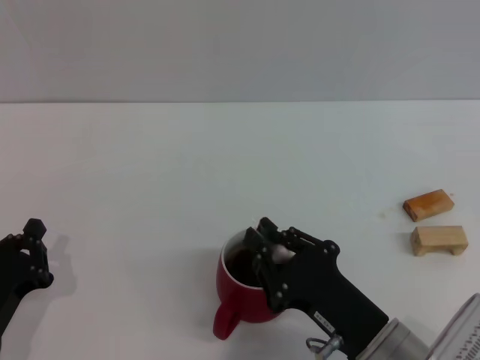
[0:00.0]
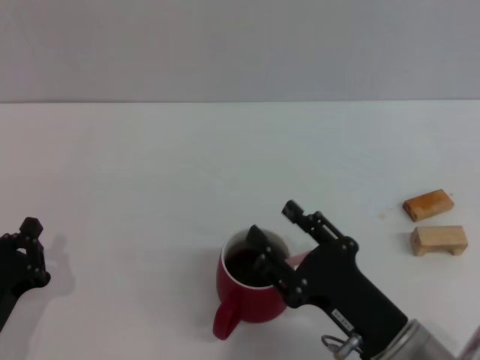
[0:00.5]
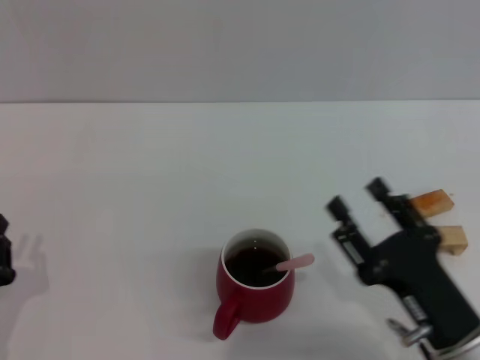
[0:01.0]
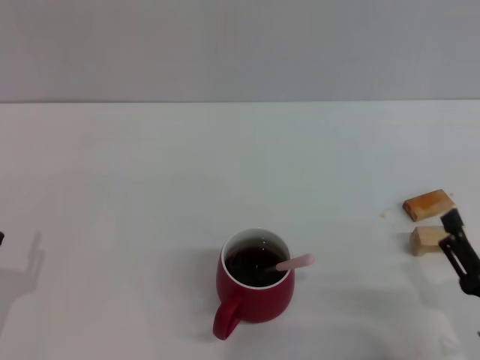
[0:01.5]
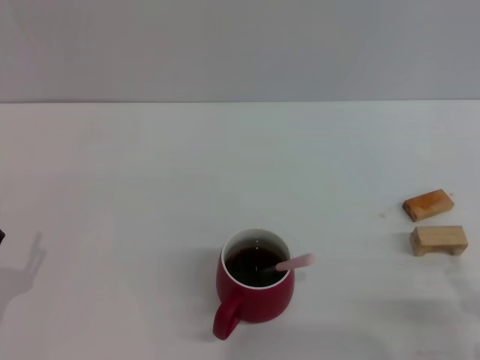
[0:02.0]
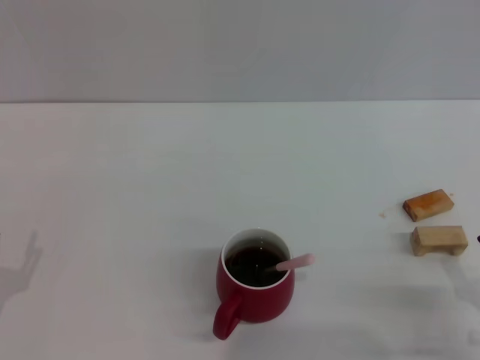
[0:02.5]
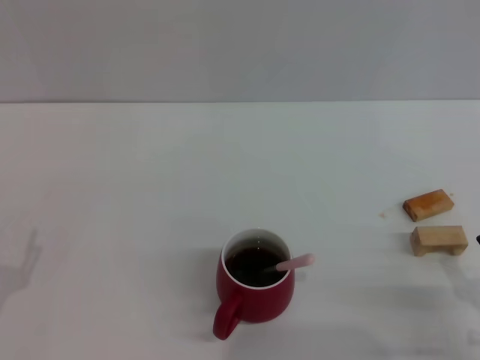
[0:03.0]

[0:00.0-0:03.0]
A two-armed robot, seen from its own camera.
Task of the whole recording: Move the red cup to the center, lift the pink spoon, stir it three times in the cup, and put the spoon into the cup.
0:00.0 to 0:01.5: The right gripper travels to the right by some 10 cm, and opens. The left gripper opens.

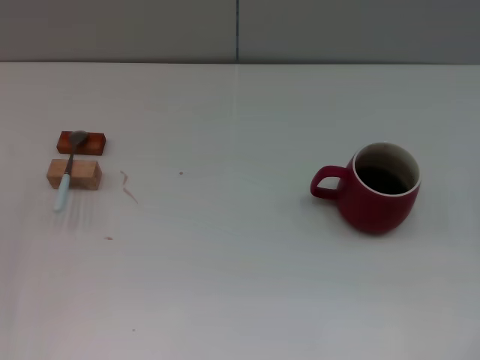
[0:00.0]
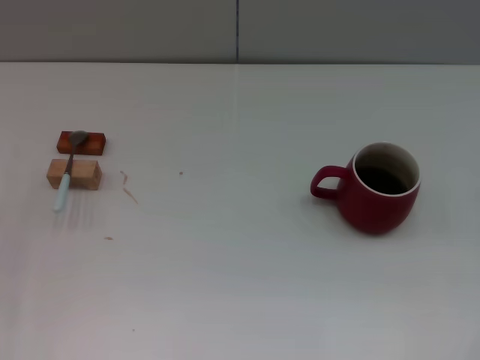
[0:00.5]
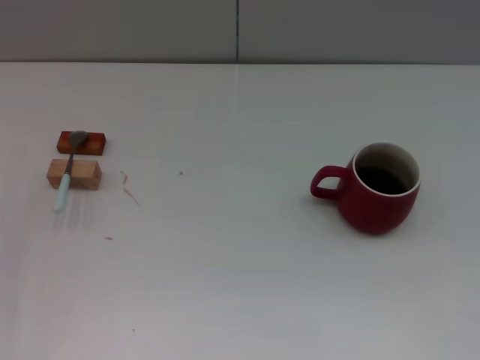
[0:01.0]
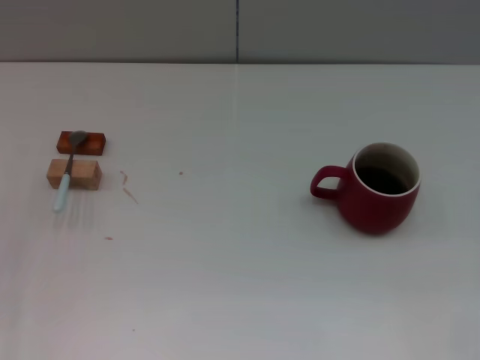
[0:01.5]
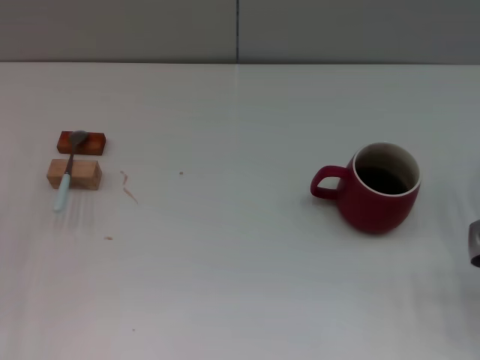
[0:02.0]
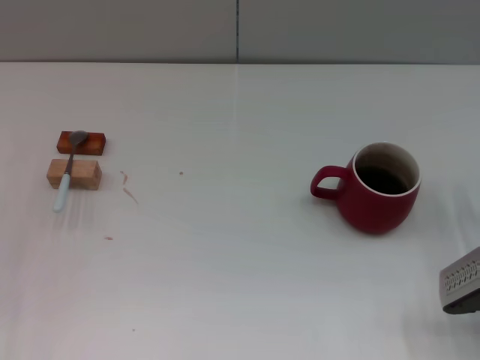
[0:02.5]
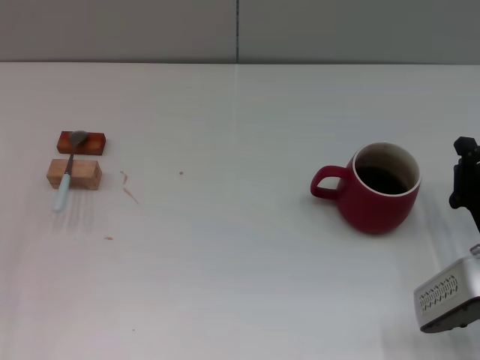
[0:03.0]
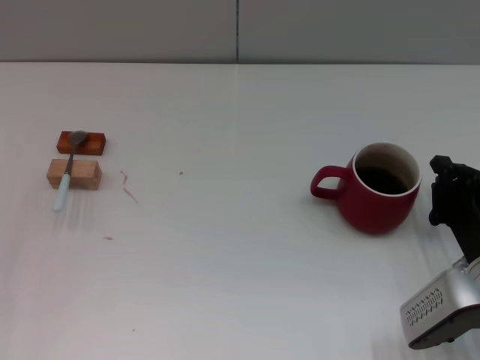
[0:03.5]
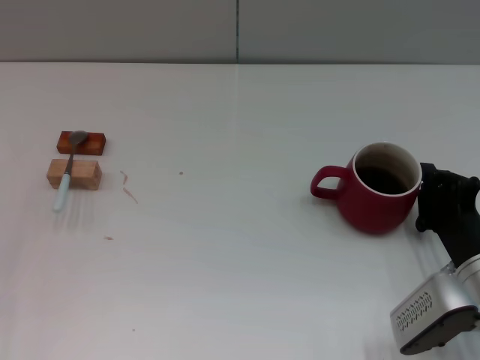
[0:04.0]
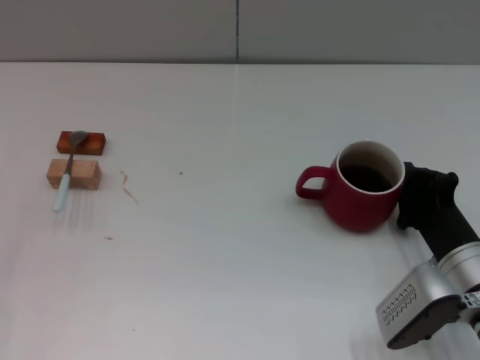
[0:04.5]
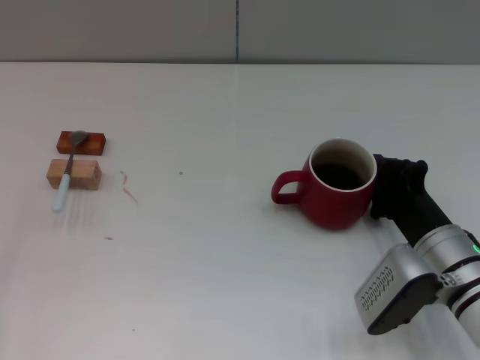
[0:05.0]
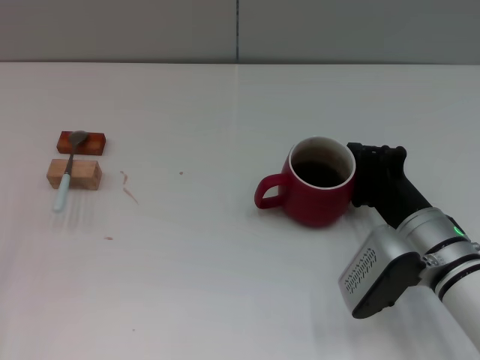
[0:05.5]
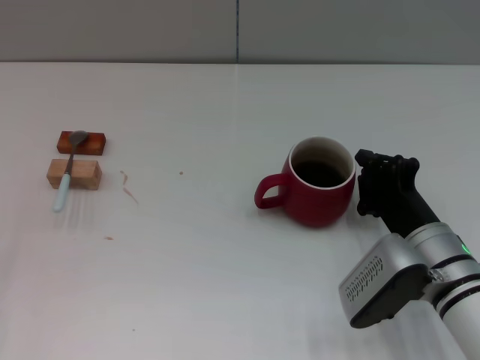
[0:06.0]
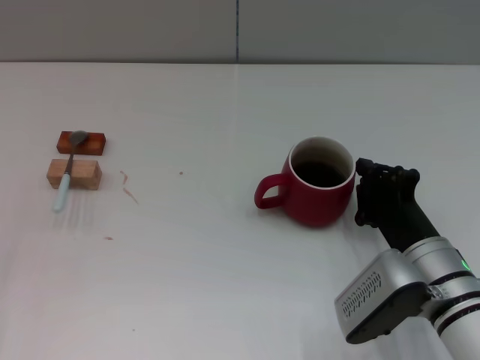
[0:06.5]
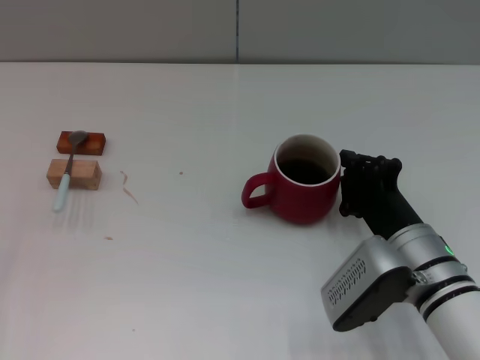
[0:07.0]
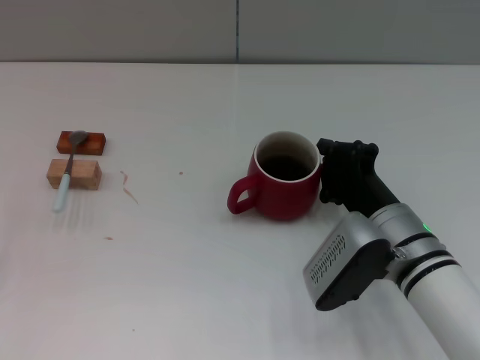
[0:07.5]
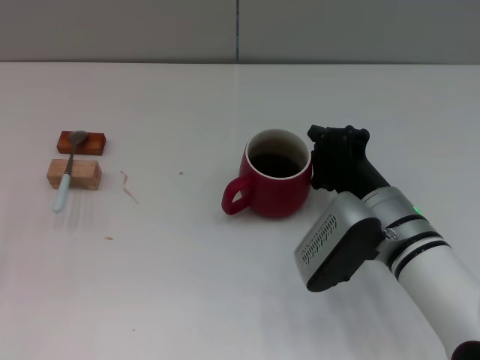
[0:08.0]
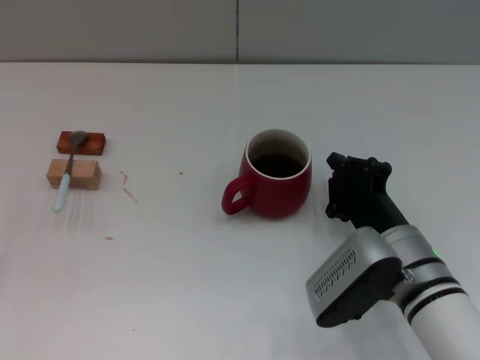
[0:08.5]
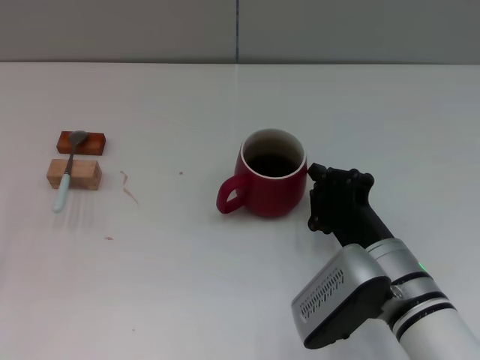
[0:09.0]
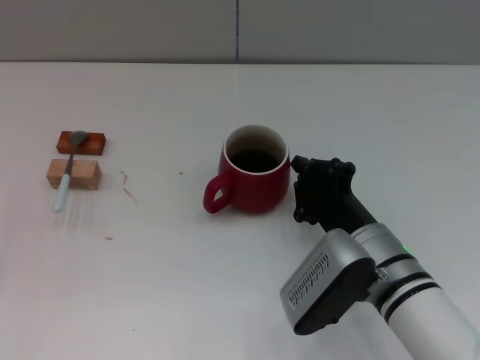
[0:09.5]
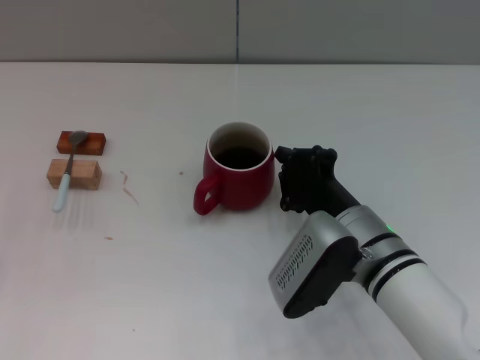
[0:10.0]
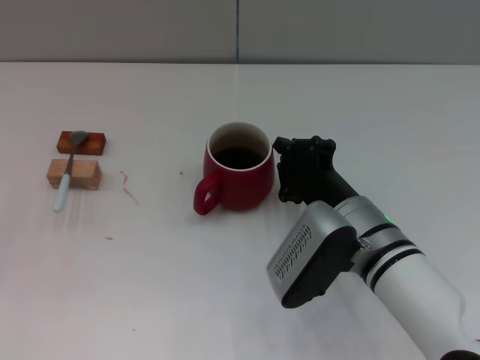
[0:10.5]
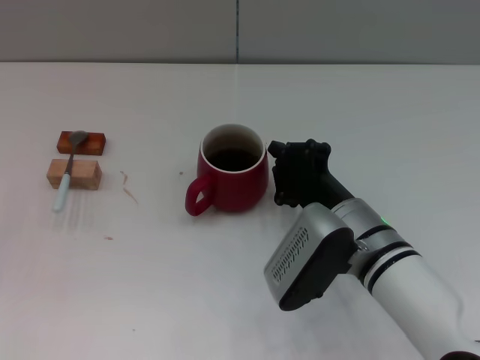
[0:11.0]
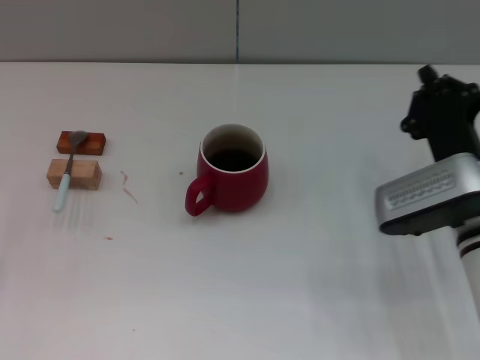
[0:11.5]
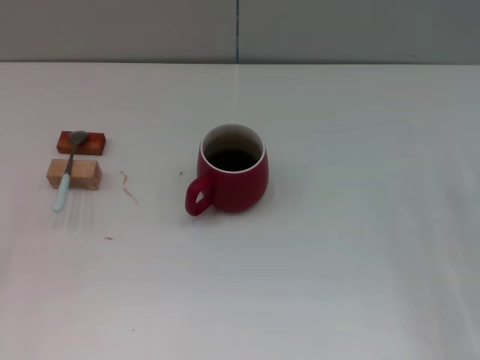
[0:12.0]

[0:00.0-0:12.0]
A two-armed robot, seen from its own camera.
Task of the whole recording: Move the red cup to the center, lift the blue spoon, stir it three times in the cup, and put the spoon into the cup.
Step, 0:00.0 to 0:11.0: Move the cup with coffee to the center of view with the right gripper.
0:00.0 to 0:02.0: The right gripper is displaced to the left by roughly 5 cm, and closes.
0:02.0 to 0:04.0: The right gripper shifts some 5 cm to the left.
0:04.0 to 0:06.0: The right gripper shifts about 5 cm to the left.
0:06.0 to 0:08.0: The right gripper ends up approximately 5 cm from where it was.
0:08.0 to 0:10.0: The grippers stay close to where they were, moving slightly.
0:10.0 to 0:12.0: The right gripper travels to the right by about 20 cm.

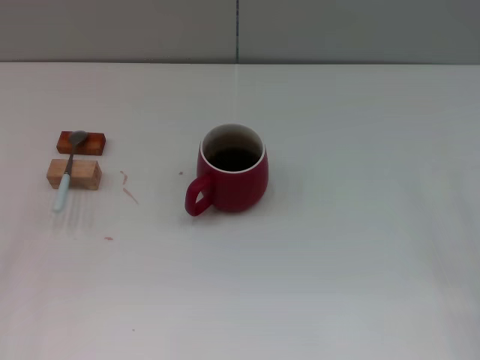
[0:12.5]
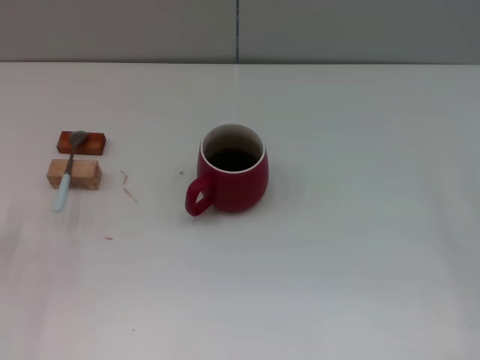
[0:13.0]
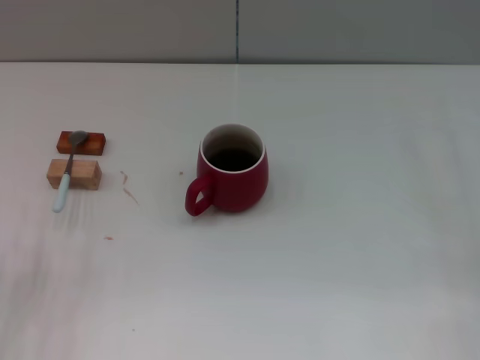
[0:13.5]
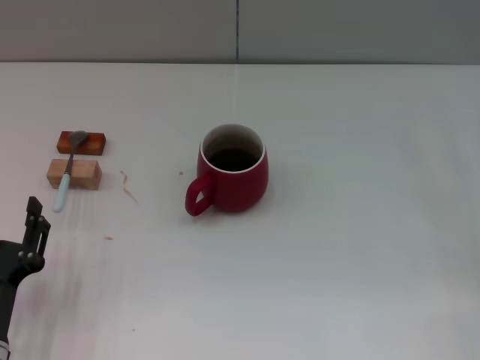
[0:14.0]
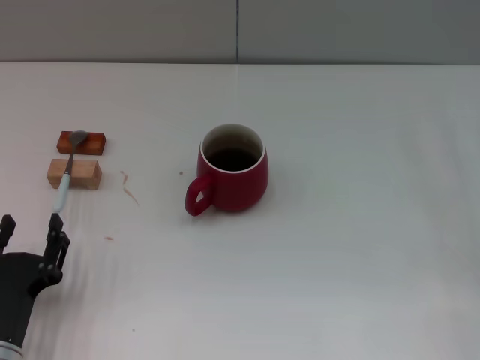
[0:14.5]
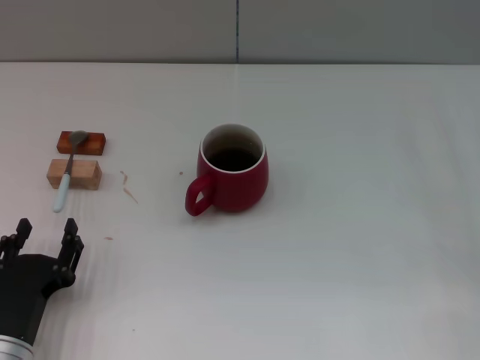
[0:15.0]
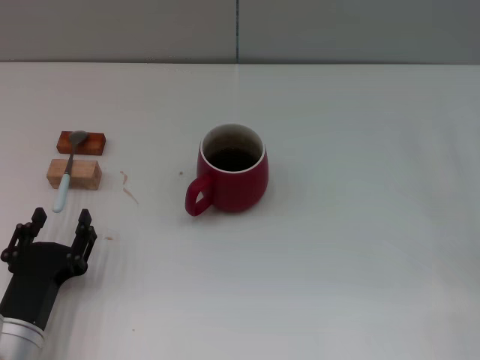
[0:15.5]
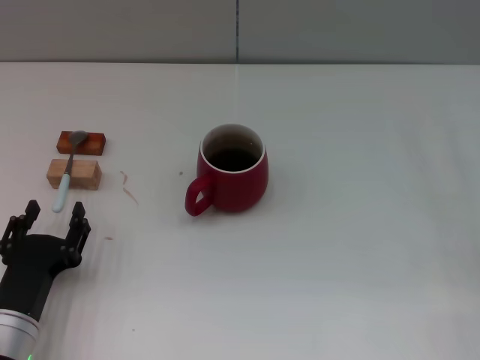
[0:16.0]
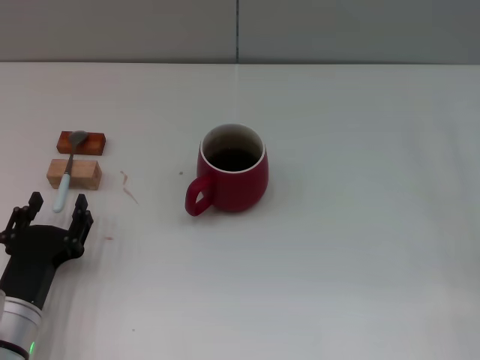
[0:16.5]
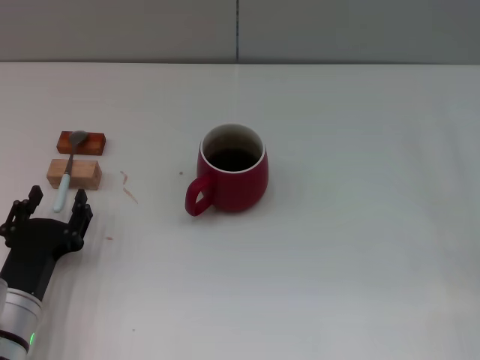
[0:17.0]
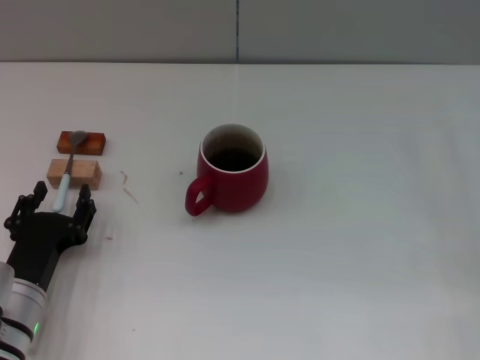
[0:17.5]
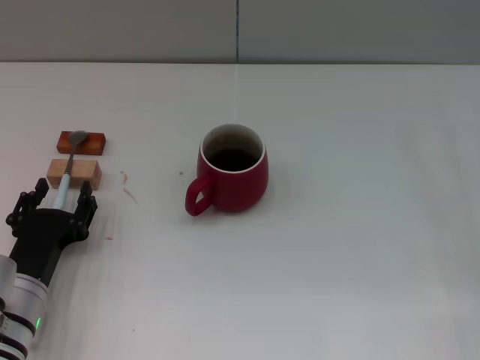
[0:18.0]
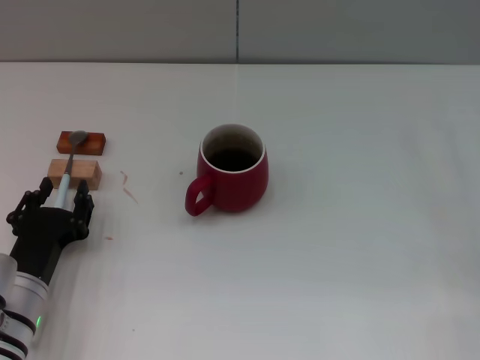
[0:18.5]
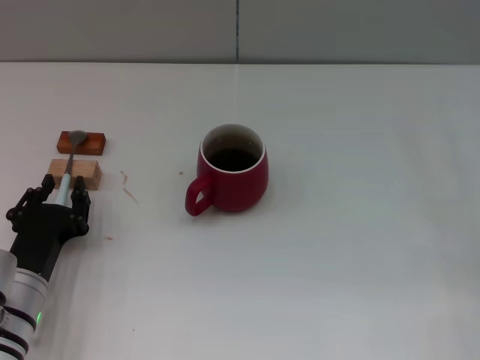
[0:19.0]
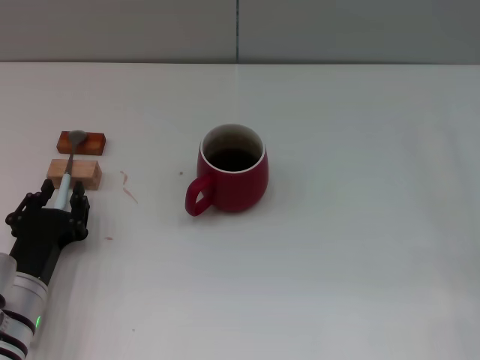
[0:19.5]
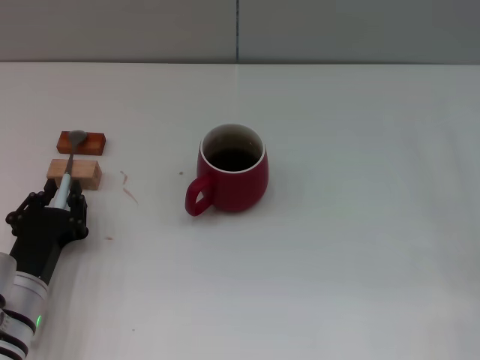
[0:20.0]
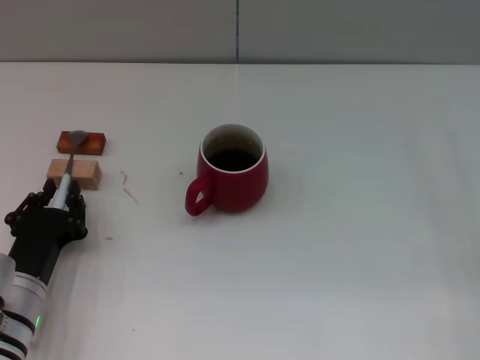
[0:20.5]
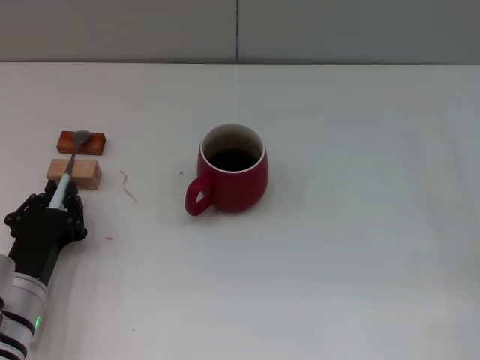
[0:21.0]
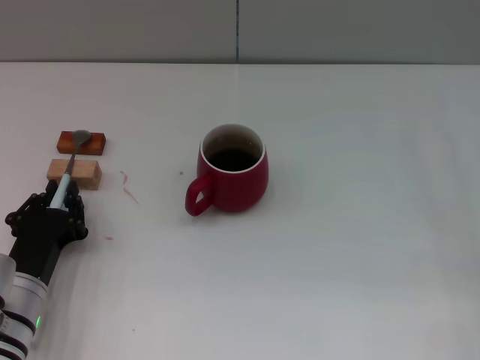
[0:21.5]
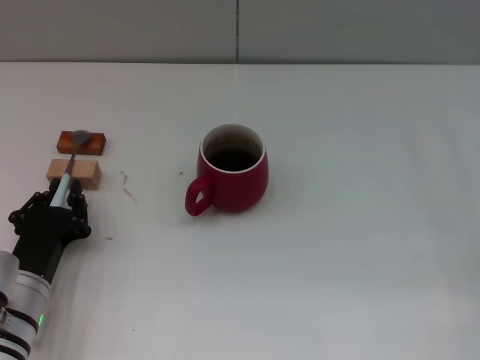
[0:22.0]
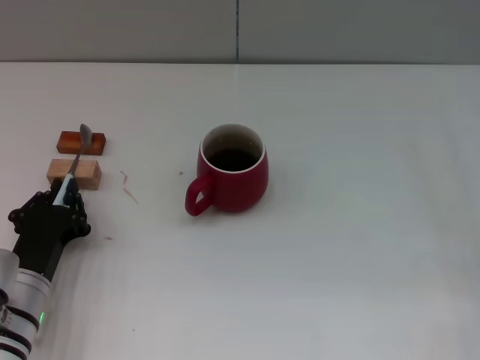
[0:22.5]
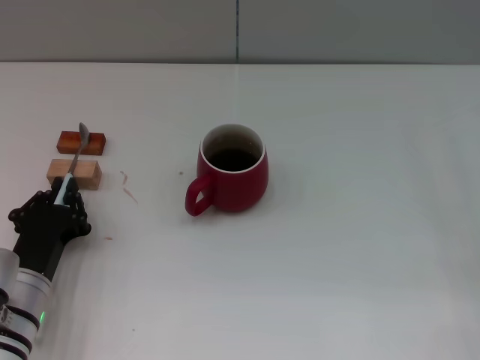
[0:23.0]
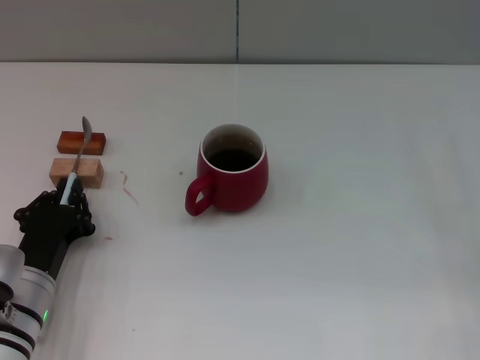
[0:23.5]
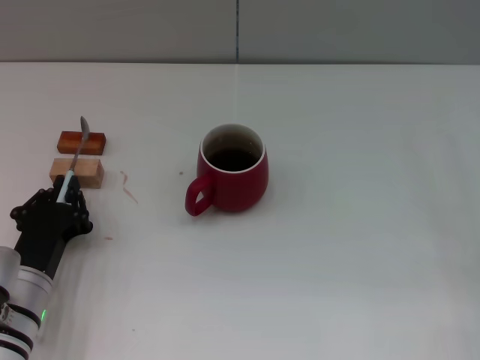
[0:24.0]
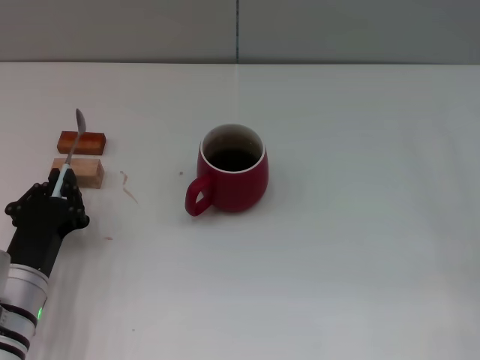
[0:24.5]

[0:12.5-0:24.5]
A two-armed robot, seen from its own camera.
Task of the whole recording: Move the red cup to the center, lift the blue spoon, stir it three times in the cup, and put the spoon into the cup.
0:12.5 to 0:14.5: The left gripper travels to the right, backward and downward by approximately 20 cm.
0:14.5 to 0:16.5: The grippers move only a little.
0:16.5 to 0:18.5: There are only small adjustments of the grippers.
0:18.5 to 0:20.5: The left gripper closes.
0:20.5 to 0:24.5: Both grippers stay put.
